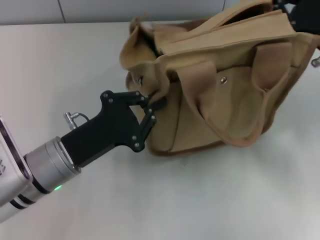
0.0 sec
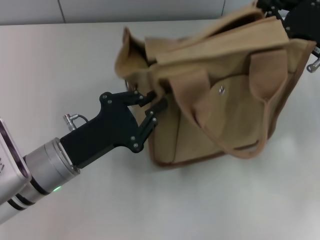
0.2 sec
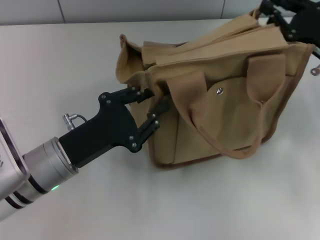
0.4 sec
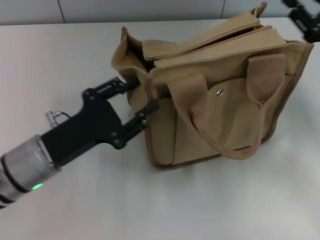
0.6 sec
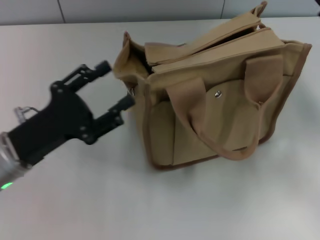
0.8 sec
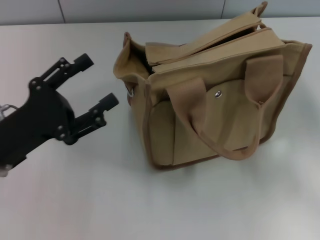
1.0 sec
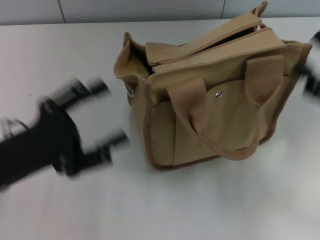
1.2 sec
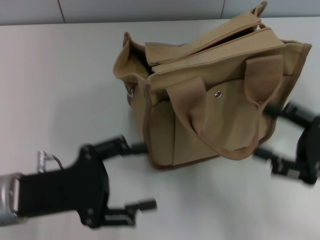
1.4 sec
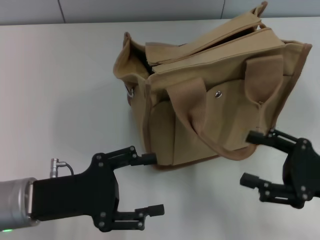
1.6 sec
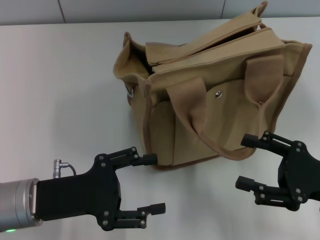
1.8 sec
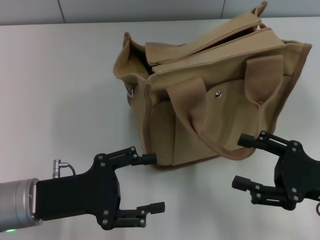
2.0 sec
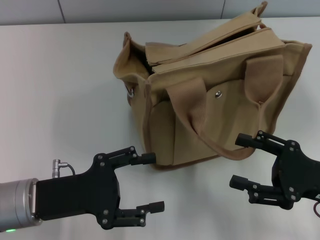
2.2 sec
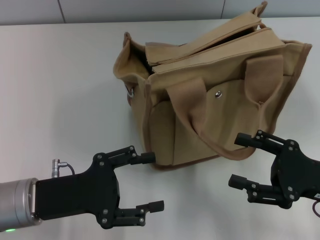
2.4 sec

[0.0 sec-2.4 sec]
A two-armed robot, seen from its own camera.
0.0 sec to 1.2 sec: The left gripper travels to the left by some 5 cm, and opens its fingers, while the right gripper shifts roughly 10 cm backward, and opens.
1.2 sec to 2.4 sec: The right gripper shifts by about 5 cm.

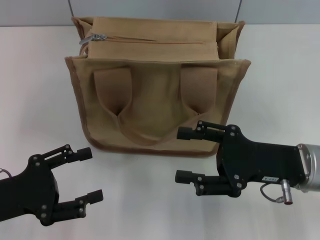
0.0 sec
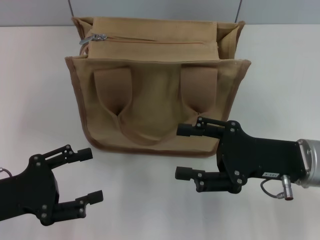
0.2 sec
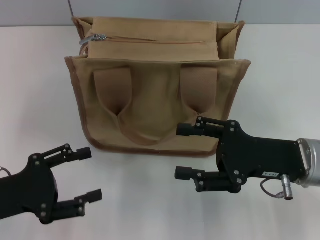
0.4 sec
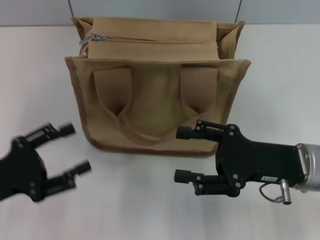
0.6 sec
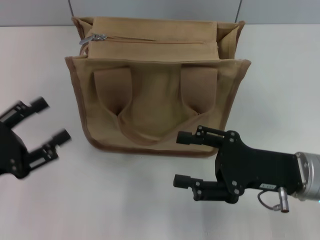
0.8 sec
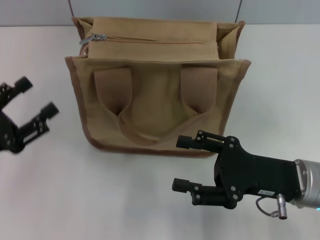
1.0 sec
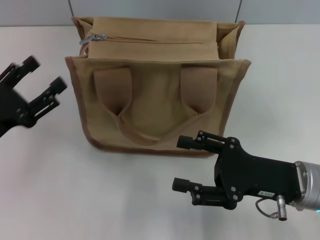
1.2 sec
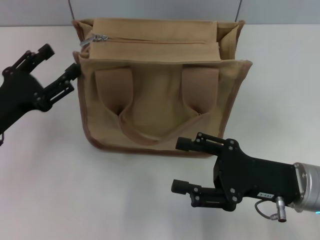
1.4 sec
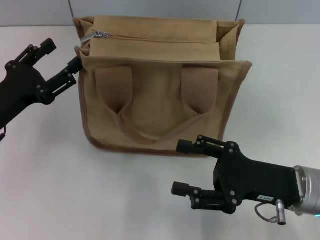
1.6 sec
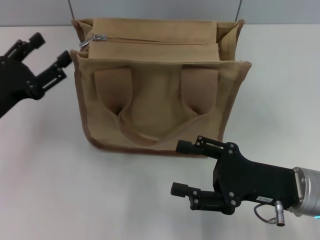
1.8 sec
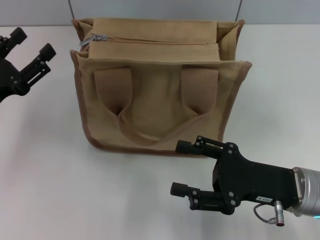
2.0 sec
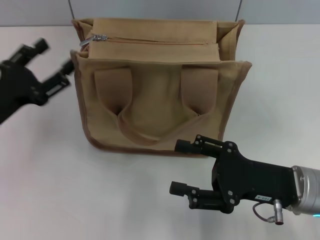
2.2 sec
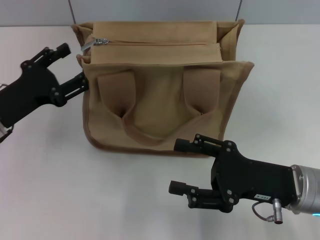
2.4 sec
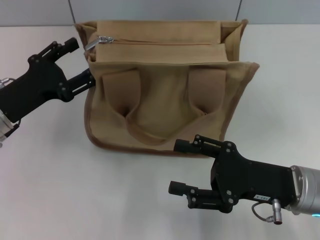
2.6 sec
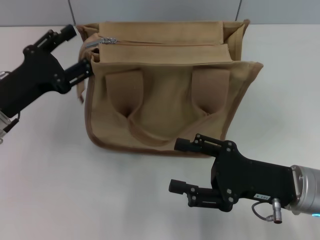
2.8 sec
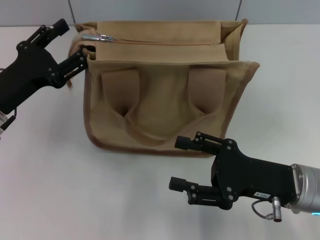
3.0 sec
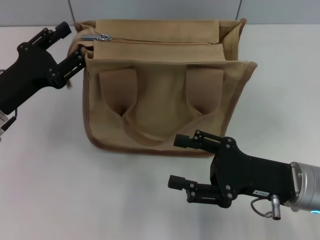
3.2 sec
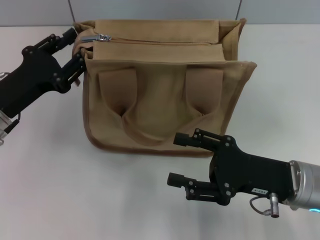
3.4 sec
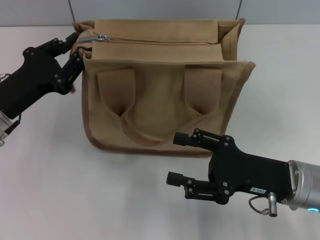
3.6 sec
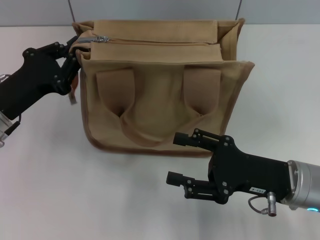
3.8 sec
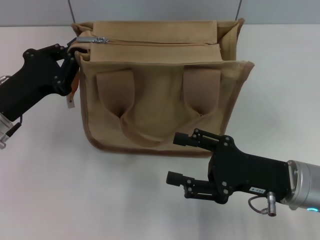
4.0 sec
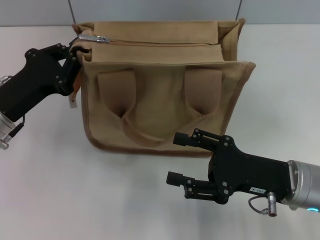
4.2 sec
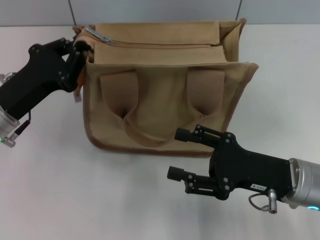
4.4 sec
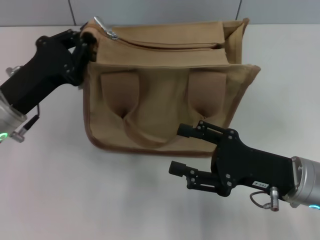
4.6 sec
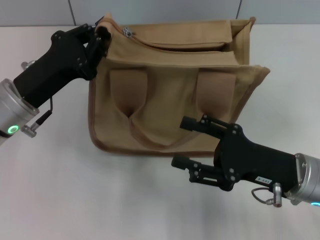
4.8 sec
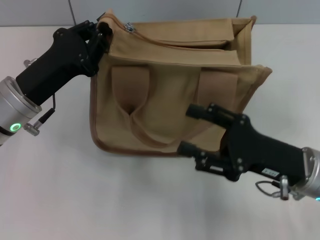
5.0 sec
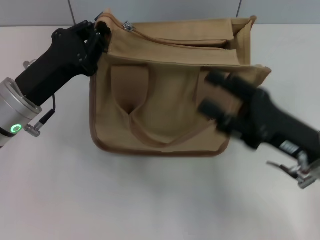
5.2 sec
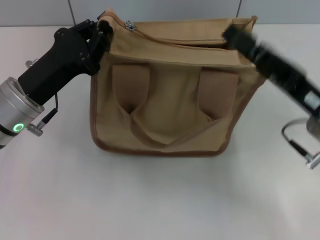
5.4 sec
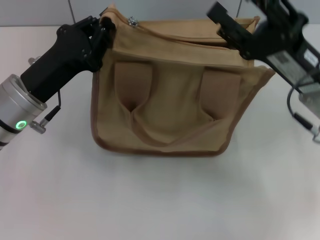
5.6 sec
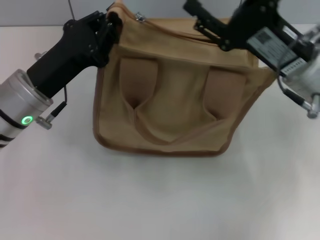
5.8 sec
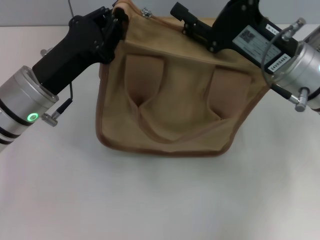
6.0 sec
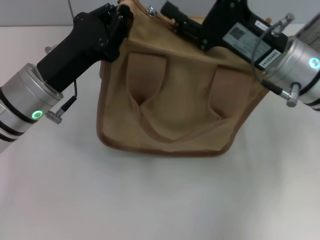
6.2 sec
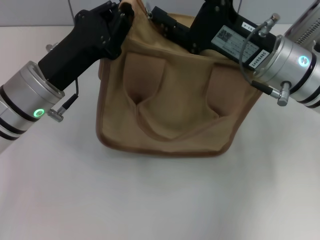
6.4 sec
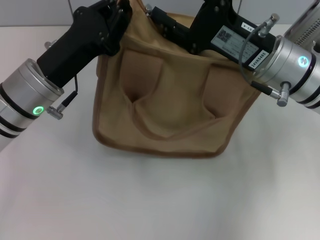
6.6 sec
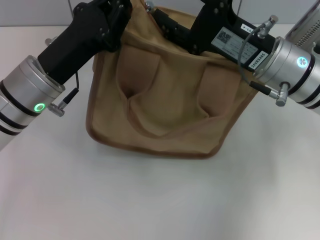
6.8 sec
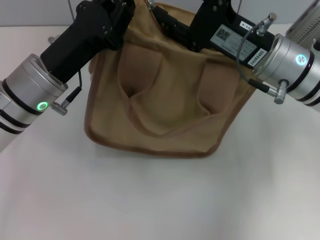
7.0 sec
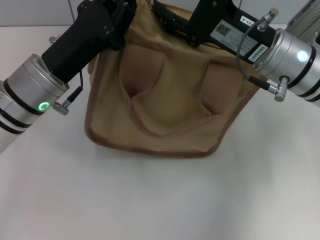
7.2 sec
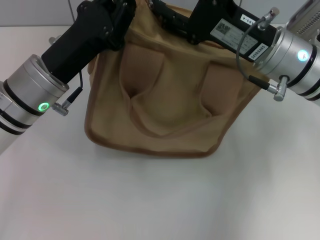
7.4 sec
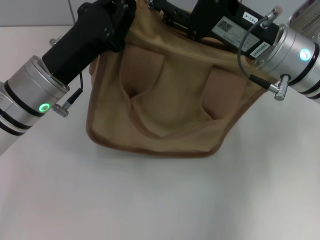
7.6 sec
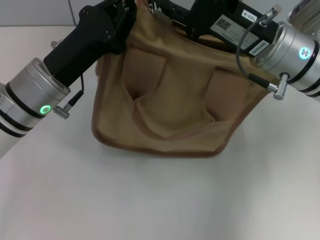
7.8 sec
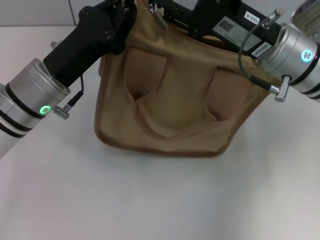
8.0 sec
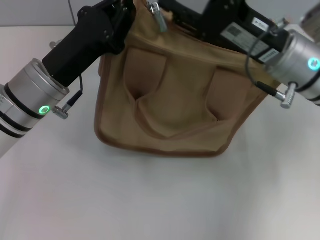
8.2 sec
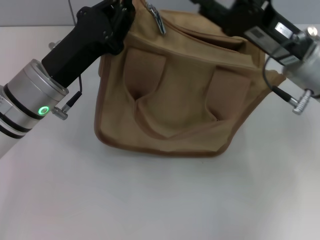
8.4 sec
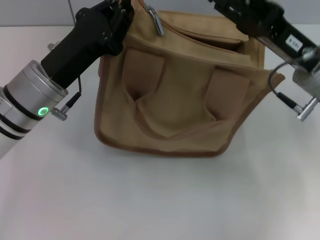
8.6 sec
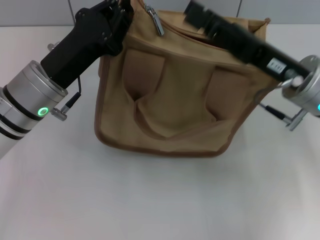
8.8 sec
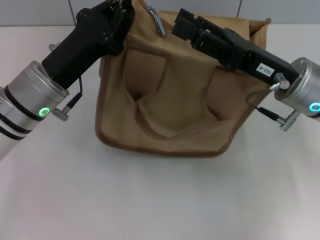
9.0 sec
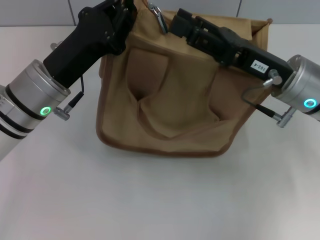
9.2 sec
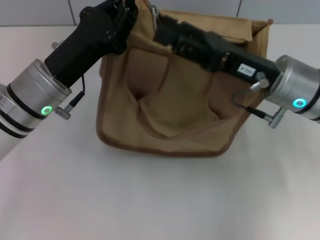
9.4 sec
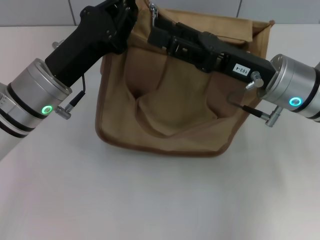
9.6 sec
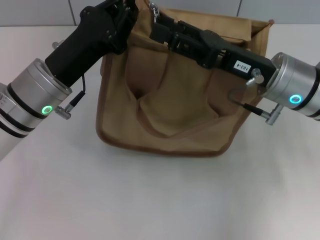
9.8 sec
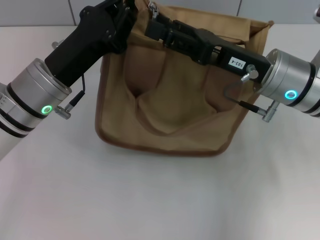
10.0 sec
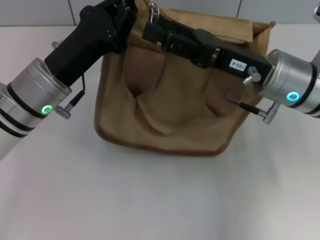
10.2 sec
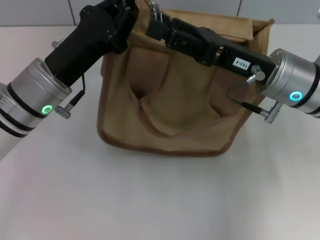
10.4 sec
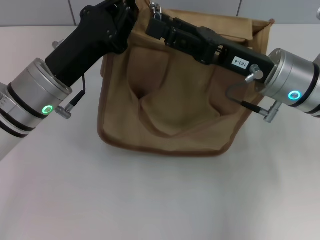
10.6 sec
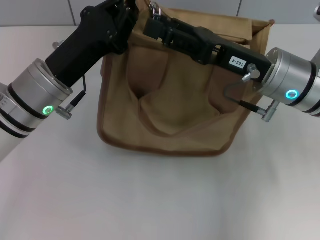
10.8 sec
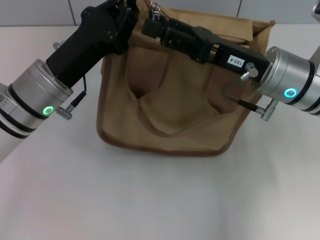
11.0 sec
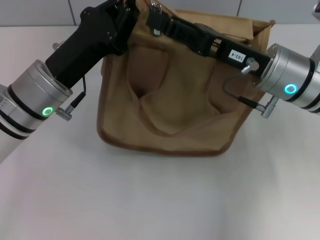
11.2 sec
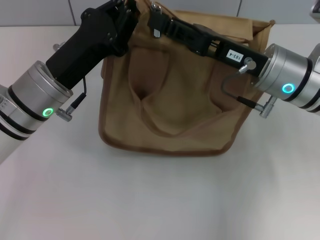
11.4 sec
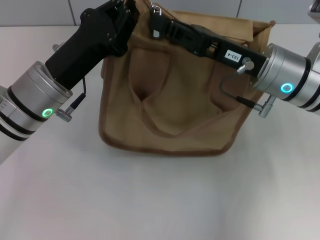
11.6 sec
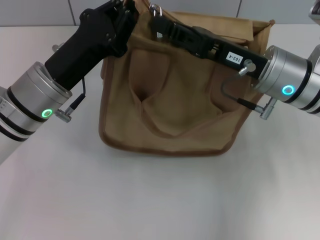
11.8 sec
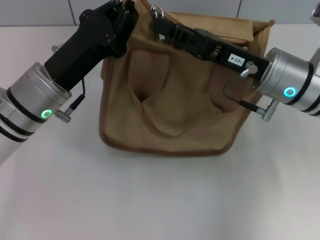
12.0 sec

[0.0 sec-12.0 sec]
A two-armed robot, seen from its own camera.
0.0 sec to 1.6 sec: The left gripper heads forward, covering roughly 10 cm.
1.6 sec to 3.0 sec: The grippers move only a little.
3.0 sec to 4.4 sec: The left gripper closes.
4.4 sec to 6.0 sec: The left gripper heads to the right, covering about 5 cm; the right gripper is displaced forward and upward by some 15 cm.
6.0 sec to 7.6 sec: There are only small adjustments of the grippers.
9.0 sec to 10.4 sec: The grippers stay close to where they were, moving slightly.
10.4 sec to 12.0 sec: The right gripper closes.

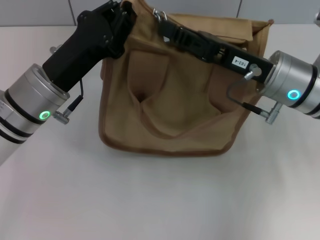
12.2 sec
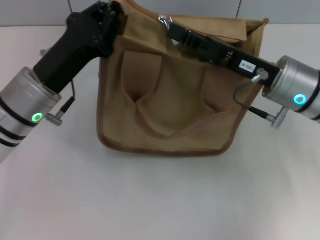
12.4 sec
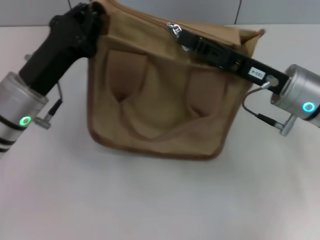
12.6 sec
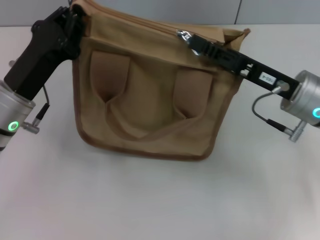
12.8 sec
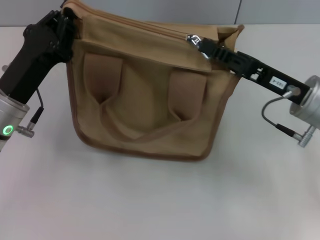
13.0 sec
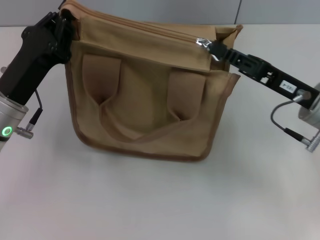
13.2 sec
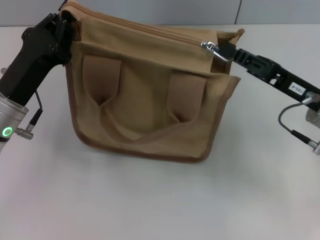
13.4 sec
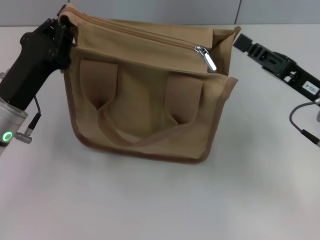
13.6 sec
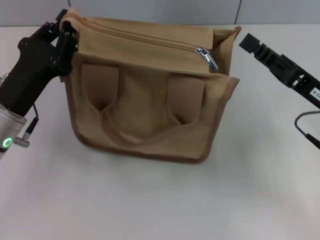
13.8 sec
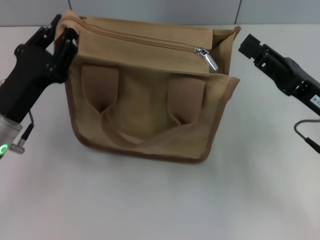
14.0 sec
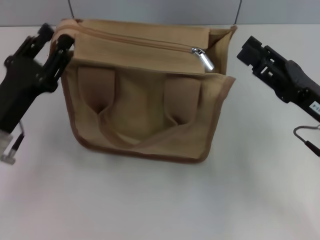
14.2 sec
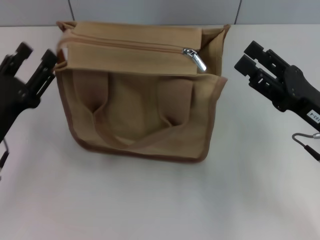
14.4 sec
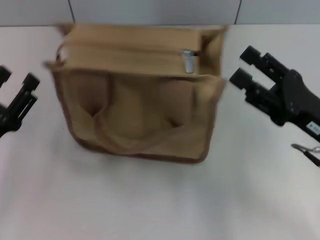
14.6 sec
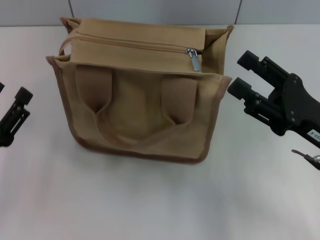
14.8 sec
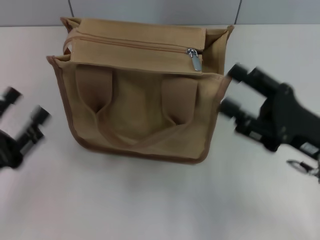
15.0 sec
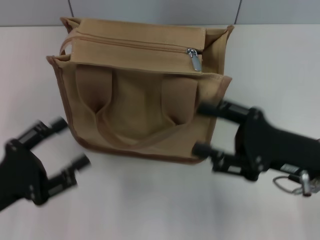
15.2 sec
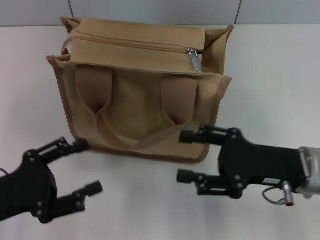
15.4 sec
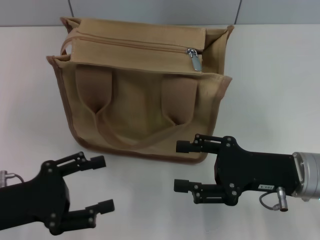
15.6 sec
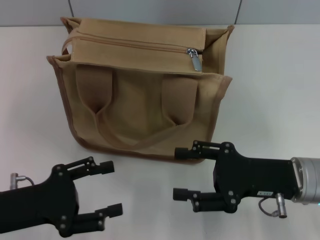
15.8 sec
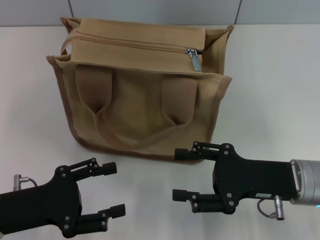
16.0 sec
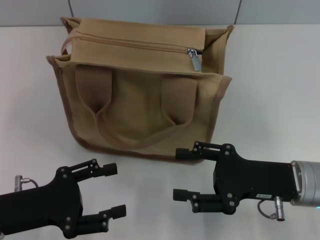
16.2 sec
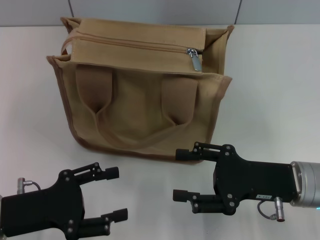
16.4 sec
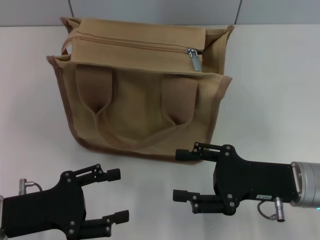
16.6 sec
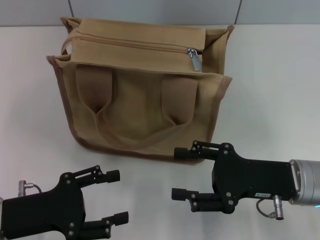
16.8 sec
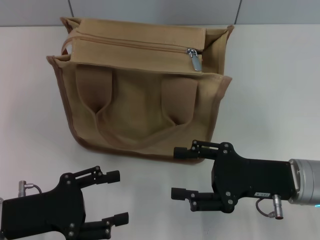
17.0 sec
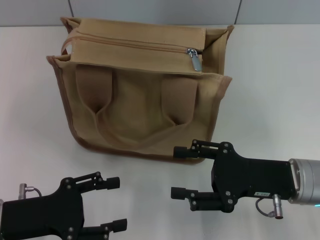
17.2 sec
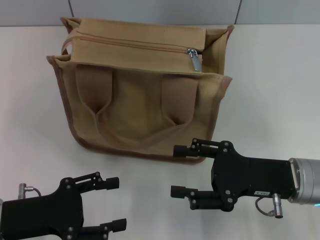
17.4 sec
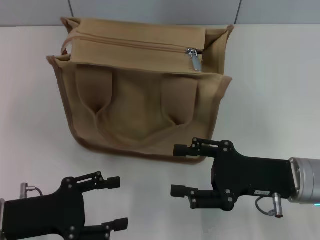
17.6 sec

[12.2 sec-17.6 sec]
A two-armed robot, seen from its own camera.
Step, 13.6 sec to 14.4 sec: Grab the zipper with your left hand.
12.2 sec to 13.6 sec: The left gripper moves roughly 5 cm, while the right gripper heads to the right, covering some 10 cm.
13.6 sec to 15.0 sec: The right gripper changes place by some 5 cm, and opens; the left gripper heads backward and to the left, covering about 15 cm, and opens.
16.2 sec to 17.6 sec: The grippers make only small movements.
